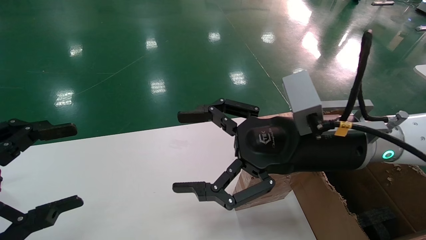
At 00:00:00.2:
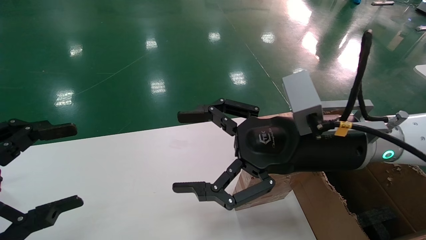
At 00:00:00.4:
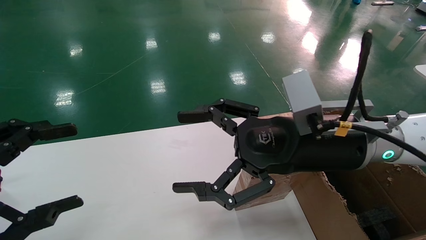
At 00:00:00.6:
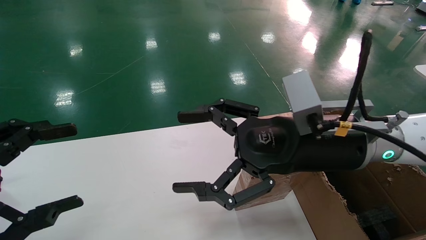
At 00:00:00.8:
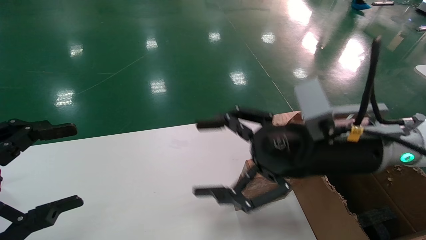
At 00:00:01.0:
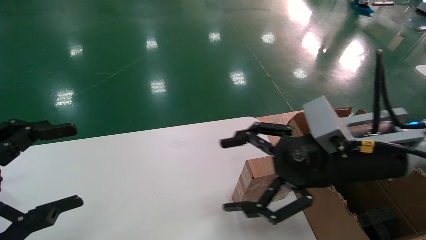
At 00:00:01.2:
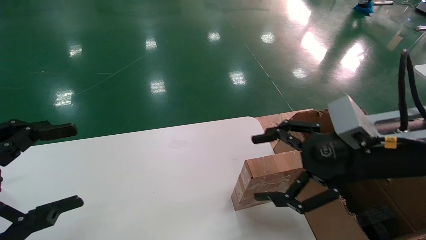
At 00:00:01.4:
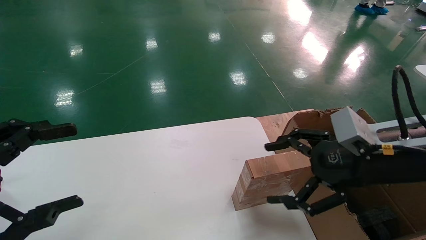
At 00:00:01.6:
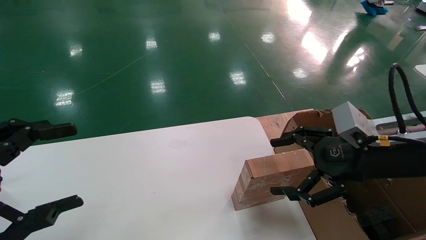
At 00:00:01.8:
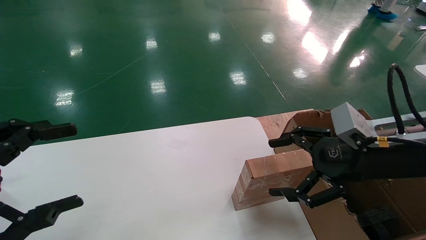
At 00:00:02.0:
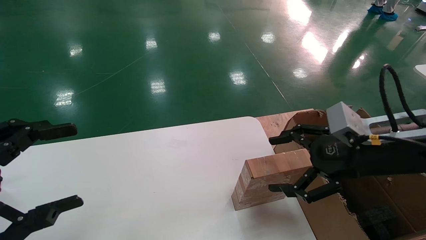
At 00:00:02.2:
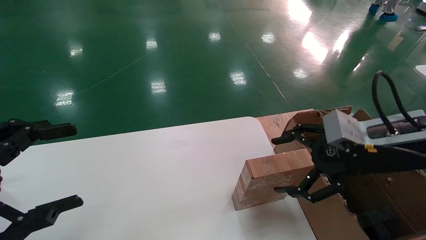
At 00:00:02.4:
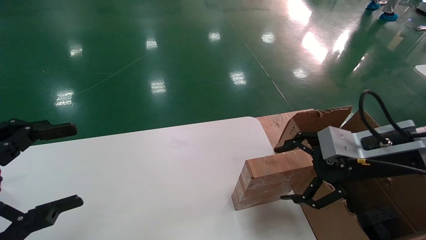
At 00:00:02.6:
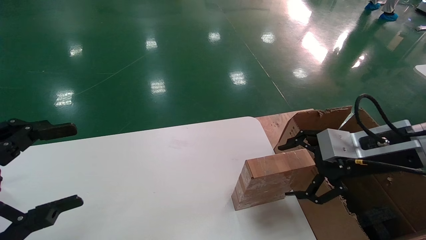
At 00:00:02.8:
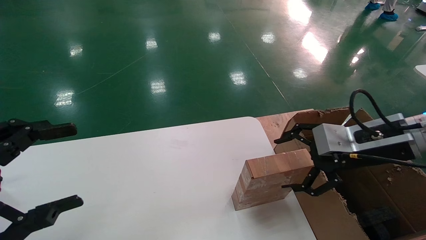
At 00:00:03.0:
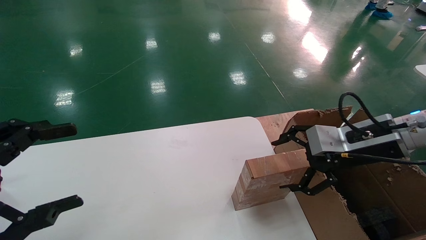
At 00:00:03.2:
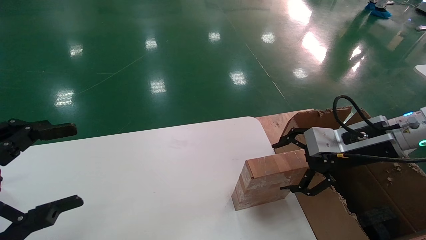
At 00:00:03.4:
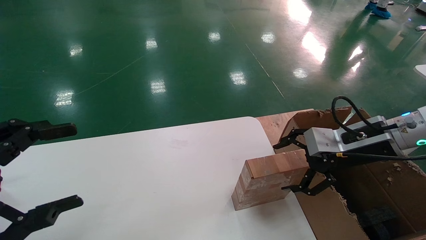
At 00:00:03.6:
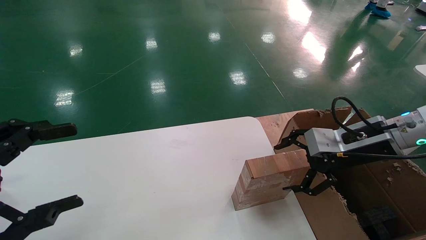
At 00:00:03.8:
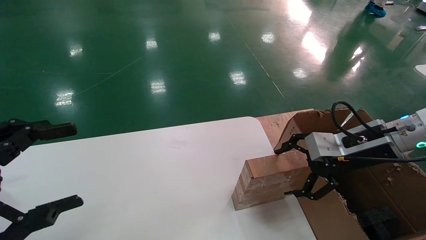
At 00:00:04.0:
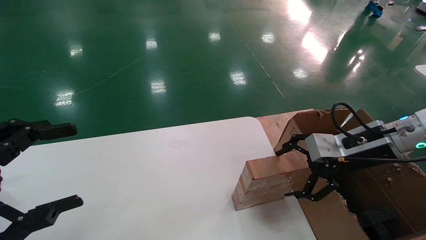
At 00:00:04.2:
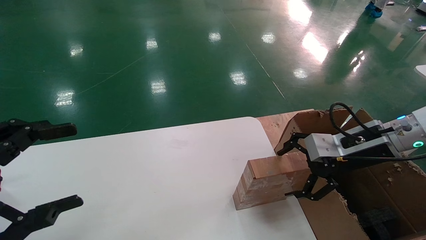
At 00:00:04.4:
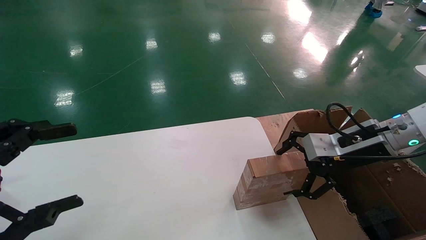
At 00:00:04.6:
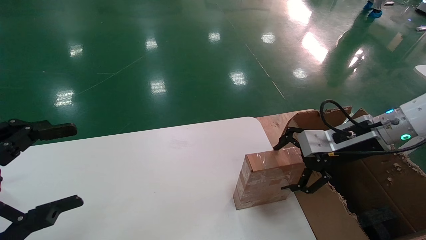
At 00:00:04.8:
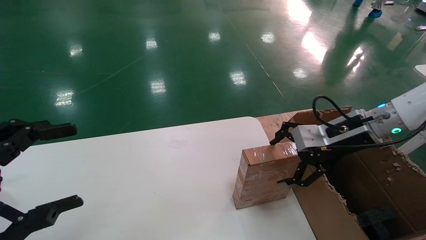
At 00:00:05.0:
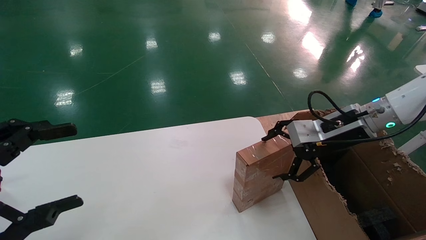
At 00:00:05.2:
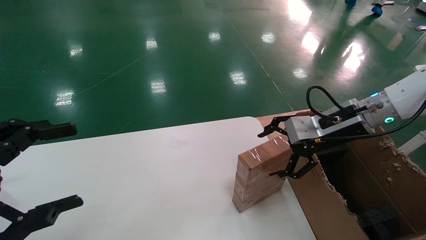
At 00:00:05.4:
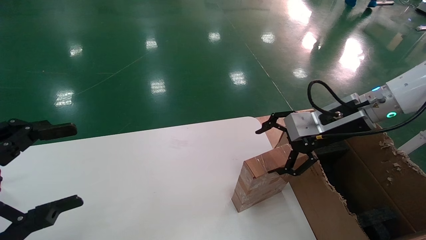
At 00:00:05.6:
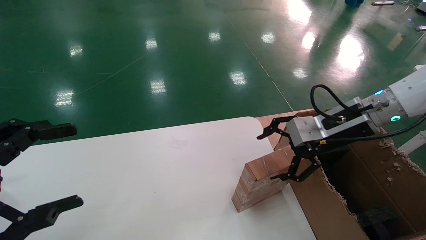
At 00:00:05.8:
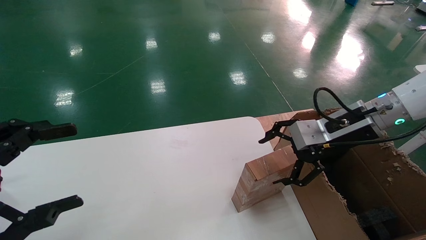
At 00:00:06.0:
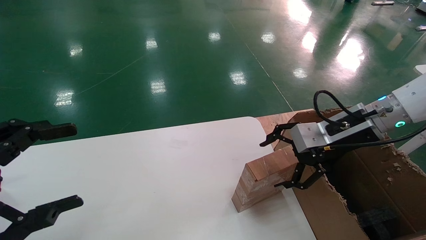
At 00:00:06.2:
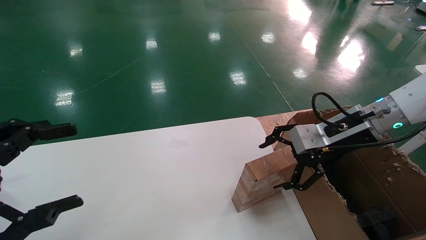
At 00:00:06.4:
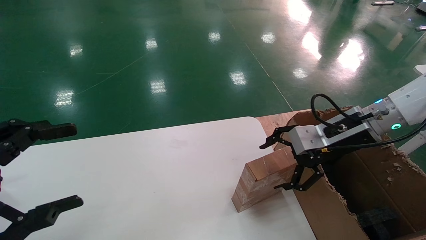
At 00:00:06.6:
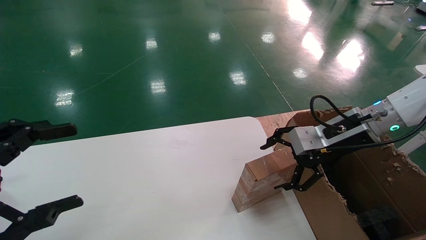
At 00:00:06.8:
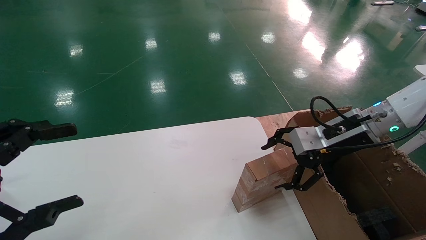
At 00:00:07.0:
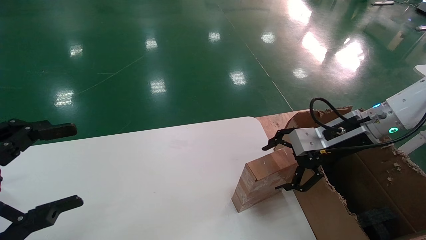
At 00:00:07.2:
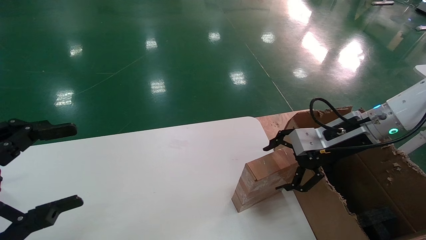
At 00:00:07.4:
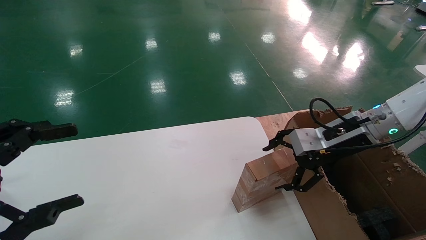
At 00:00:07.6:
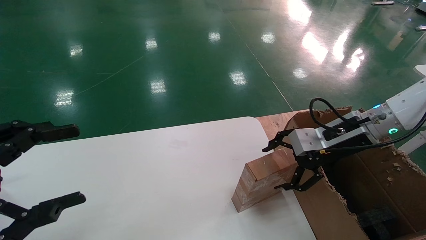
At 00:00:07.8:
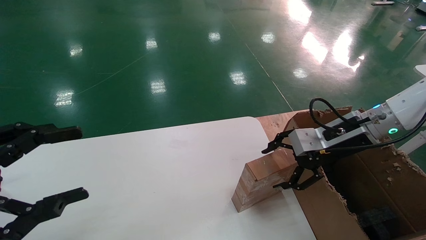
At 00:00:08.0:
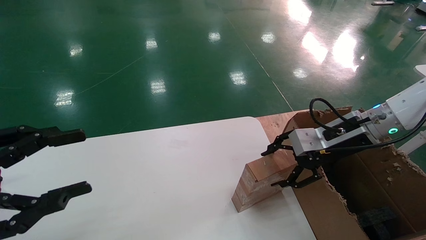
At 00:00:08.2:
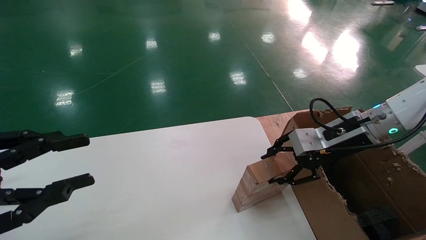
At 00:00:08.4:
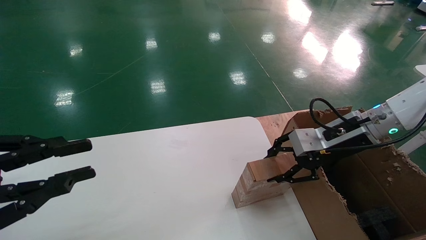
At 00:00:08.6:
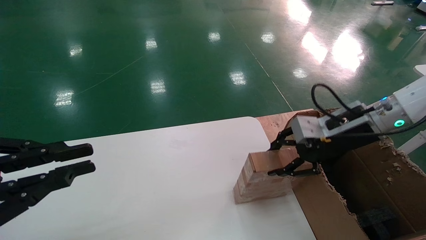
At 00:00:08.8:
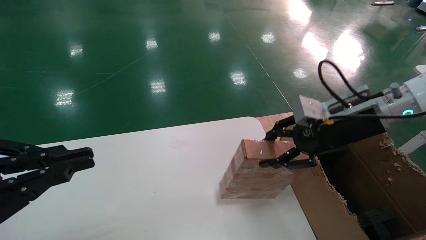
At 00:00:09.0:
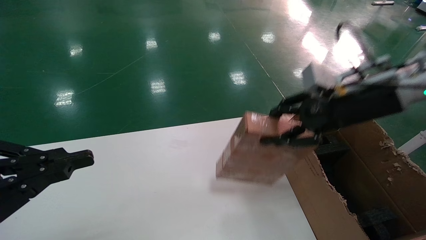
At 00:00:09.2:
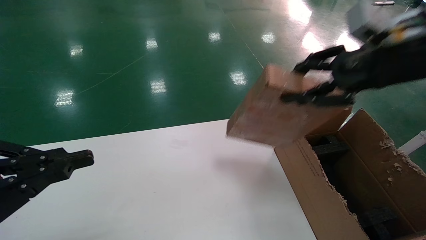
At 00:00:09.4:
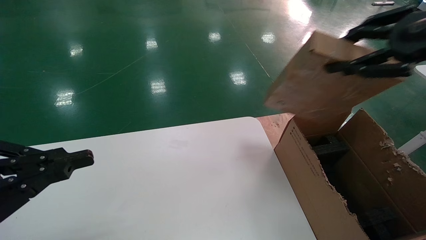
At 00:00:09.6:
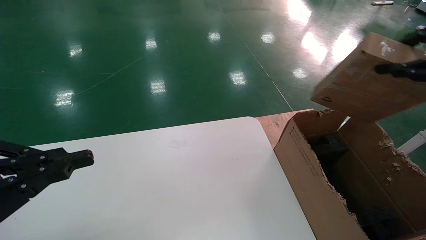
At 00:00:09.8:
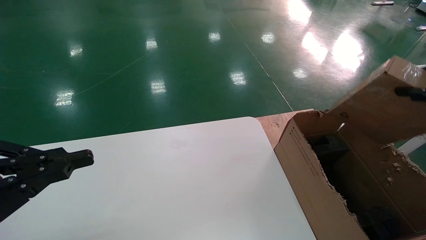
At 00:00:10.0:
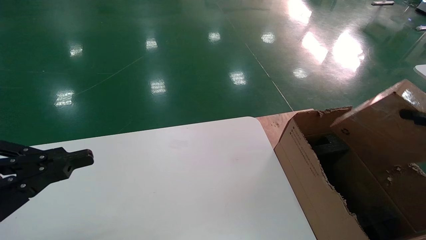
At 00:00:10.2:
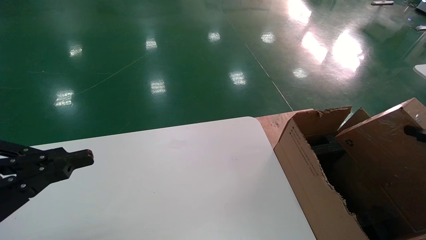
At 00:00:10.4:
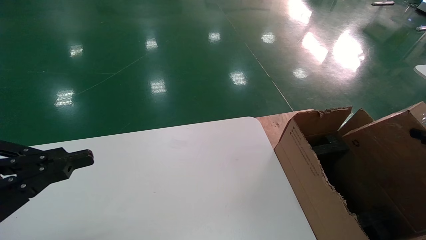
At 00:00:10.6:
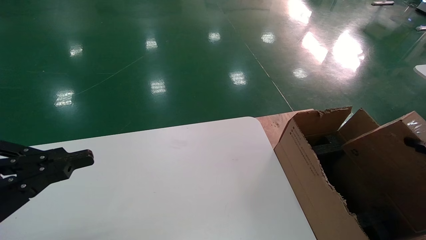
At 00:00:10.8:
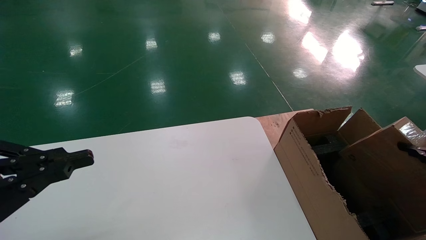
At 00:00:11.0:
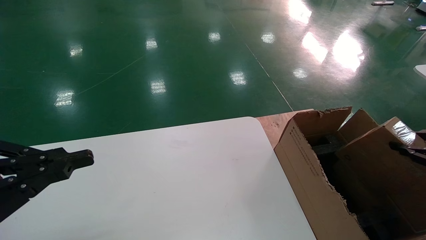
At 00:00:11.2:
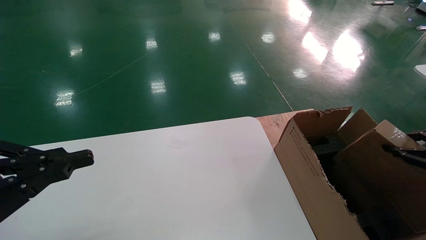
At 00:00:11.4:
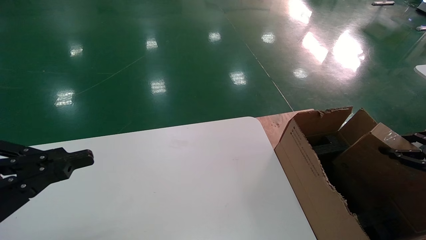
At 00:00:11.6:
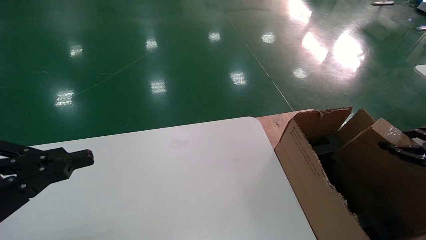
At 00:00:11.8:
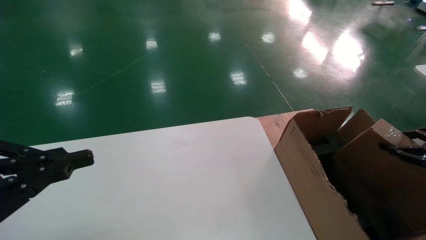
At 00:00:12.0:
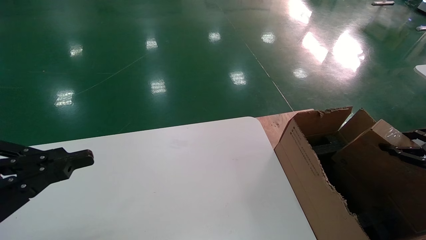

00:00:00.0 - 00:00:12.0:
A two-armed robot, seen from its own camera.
Task of the whole recording: put the box on the table into the big box.
Step, 00:00:01.2 - 00:00:08.4: Pick up the mouse and the power cord paper box.
00:00:00.0 - 00:00:01.6: The right gripper heads to the right, covering approximately 10 cm.
00:00:01.6 - 00:00:03.0: The right gripper heads forward, covering about 5 cm.
00:00:03.0 - 00:00:04.4: The grippers stay close to where they were, moving slightly.
00:00:04.4 - 00:00:07.6: There are only small adjustments of the grippers.
00:00:07.6 - 00:00:09.0: The left gripper closes its fingers. Meanwhile the right gripper is displaced upward by about 10 cm, and closes its fingers.
00:00:09.0 - 00:00:10.4: The right gripper travels to the right, backward and downward by about 30 cm.
00:00:10.4 - 00:00:12.0: The right gripper goes about 5 cm forward.

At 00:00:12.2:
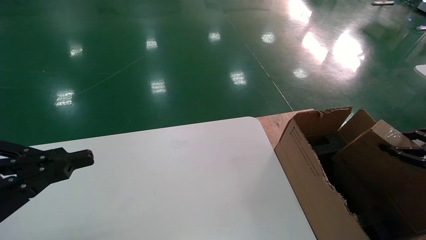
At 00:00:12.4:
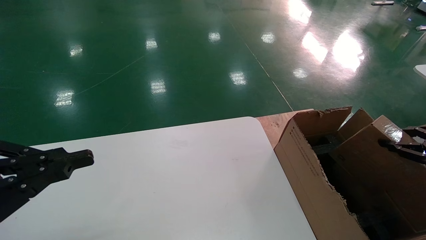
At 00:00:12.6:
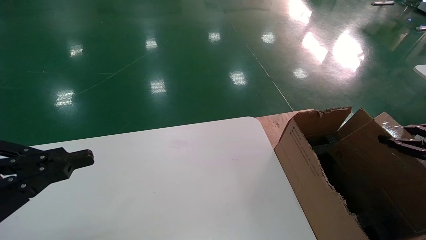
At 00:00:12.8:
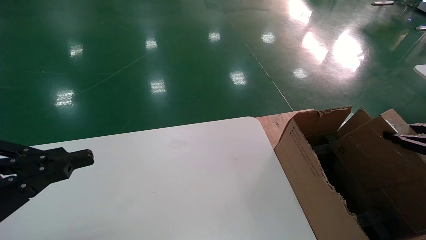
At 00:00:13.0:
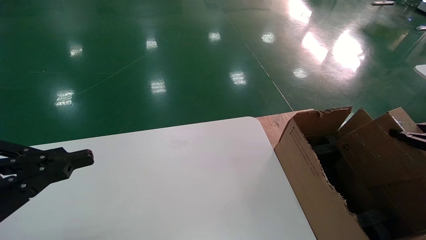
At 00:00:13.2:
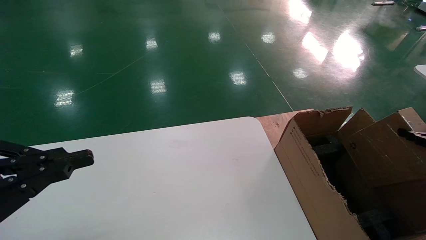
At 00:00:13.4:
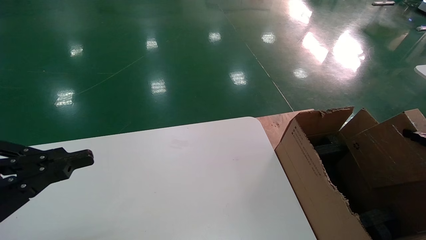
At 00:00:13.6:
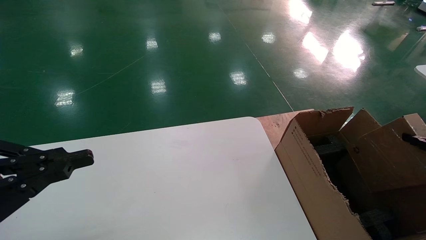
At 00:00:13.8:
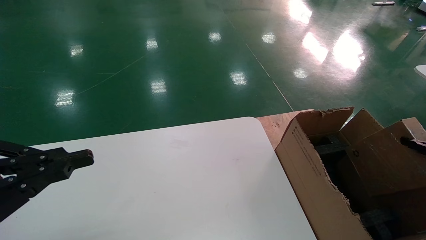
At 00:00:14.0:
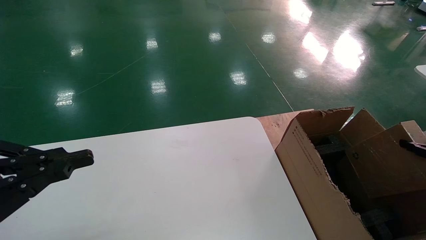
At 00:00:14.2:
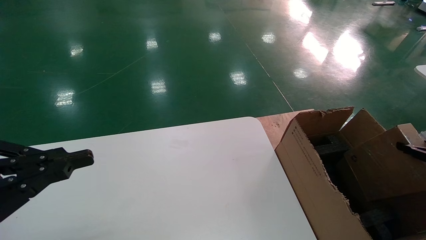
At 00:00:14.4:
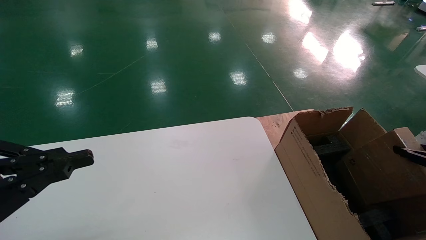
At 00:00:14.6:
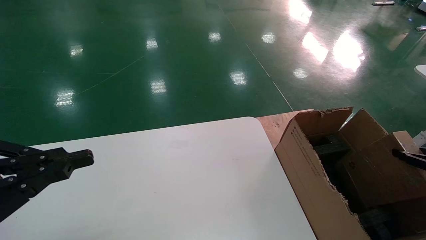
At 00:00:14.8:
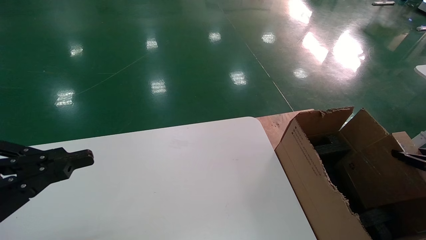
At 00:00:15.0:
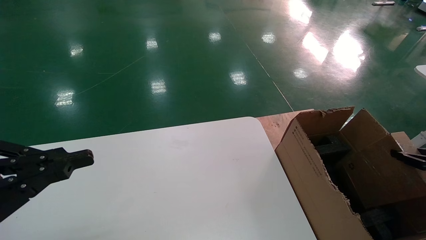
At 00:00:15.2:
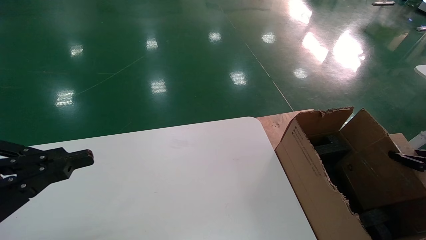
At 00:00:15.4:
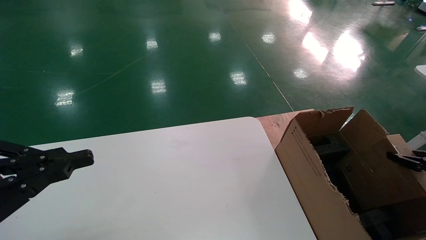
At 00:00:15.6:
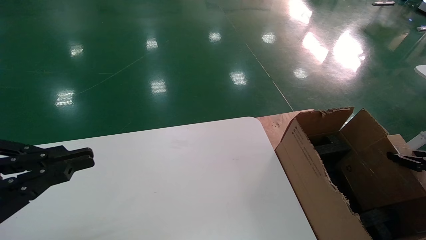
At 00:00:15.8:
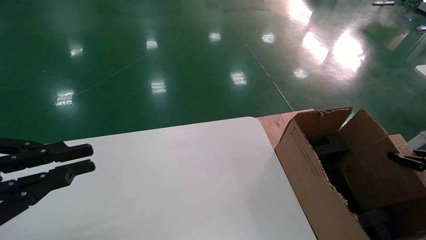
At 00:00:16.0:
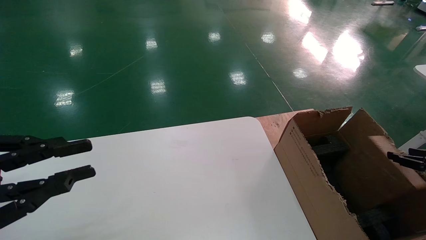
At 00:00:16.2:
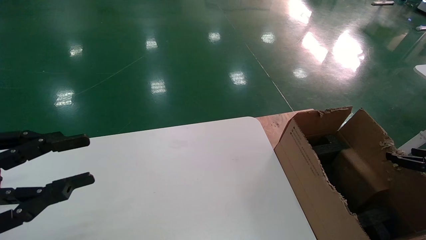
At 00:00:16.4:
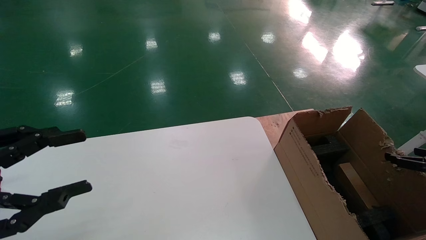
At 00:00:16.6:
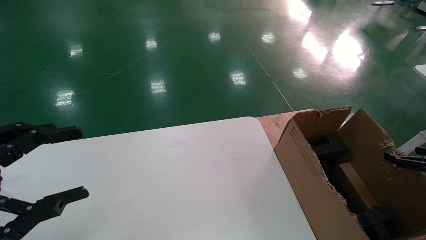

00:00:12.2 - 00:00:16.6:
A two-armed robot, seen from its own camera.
Task of the whole recording: put the box on the table into the big box.
Step, 00:00:12.2 - 00:00:16.4: Place the mouse and the power cord paper box into the container.
00:00:12.2 - 00:00:13.6: The right gripper moves roughly 5 cm.
00:00:13.6 - 00:00:15.2: The right gripper moves about 5 cm.
00:00:15.2 - 00:00:16.6: The left gripper opens its fingers. The right gripper opens.
